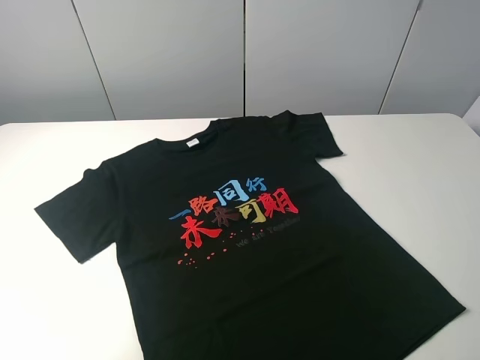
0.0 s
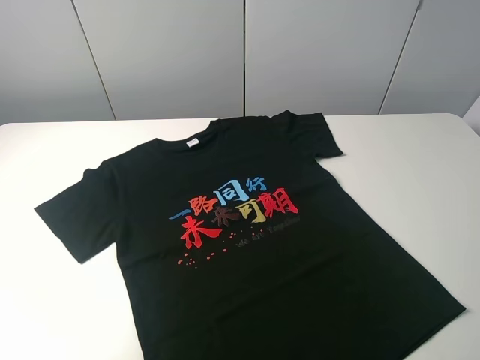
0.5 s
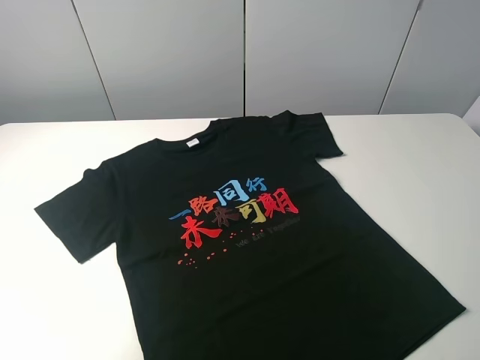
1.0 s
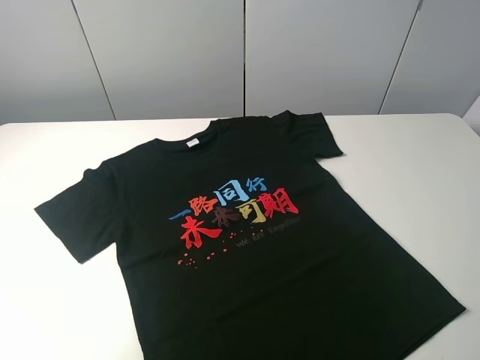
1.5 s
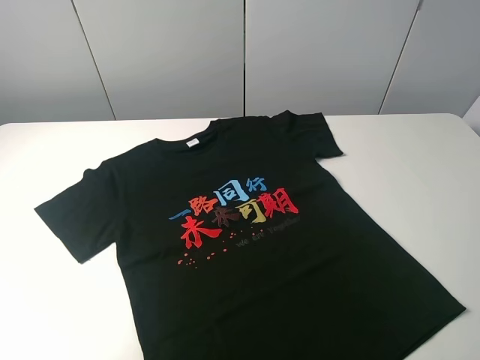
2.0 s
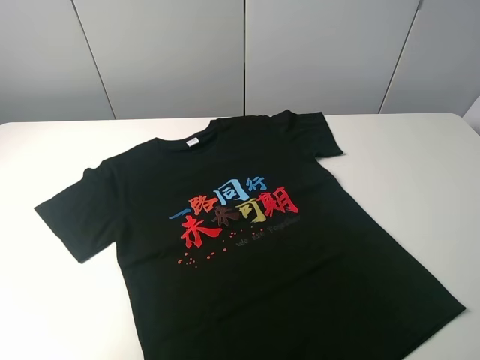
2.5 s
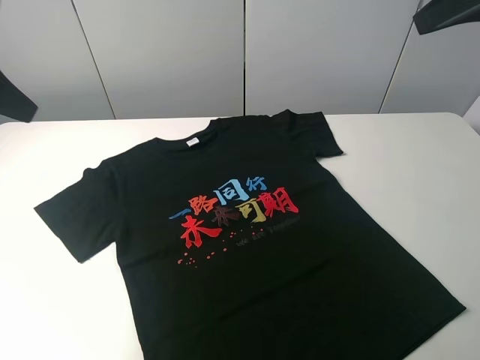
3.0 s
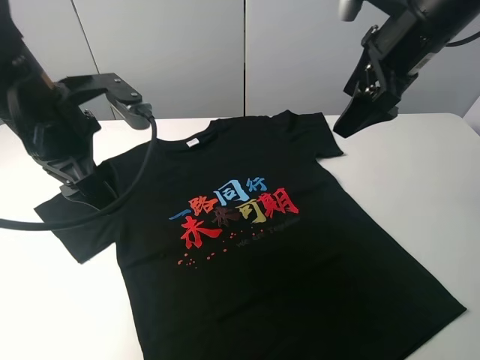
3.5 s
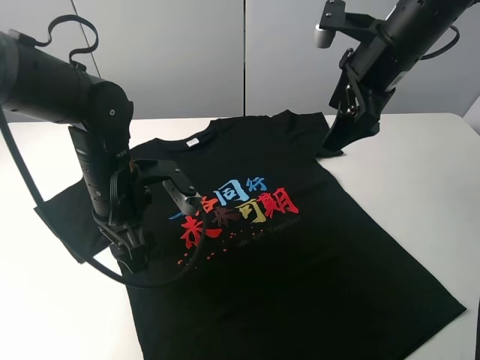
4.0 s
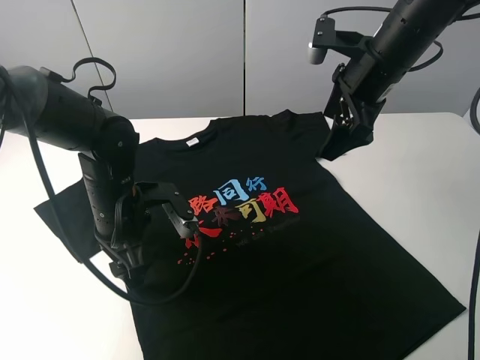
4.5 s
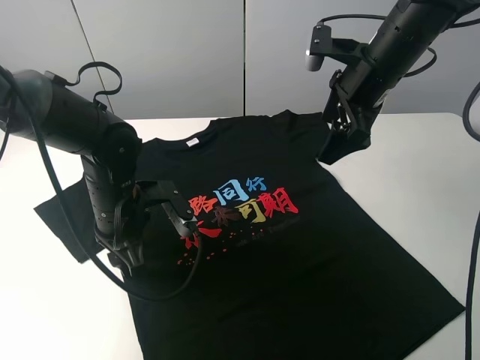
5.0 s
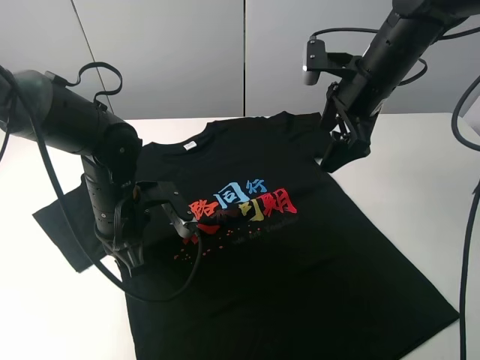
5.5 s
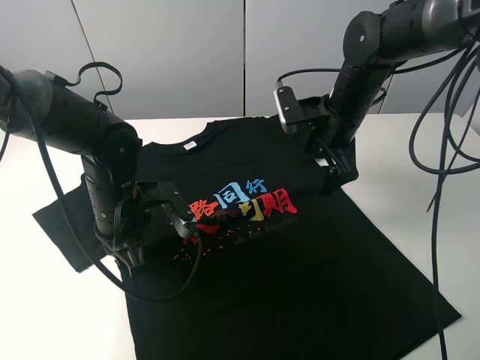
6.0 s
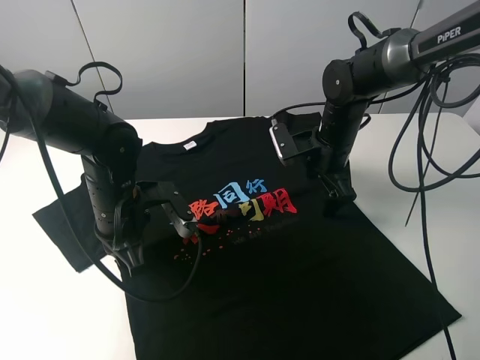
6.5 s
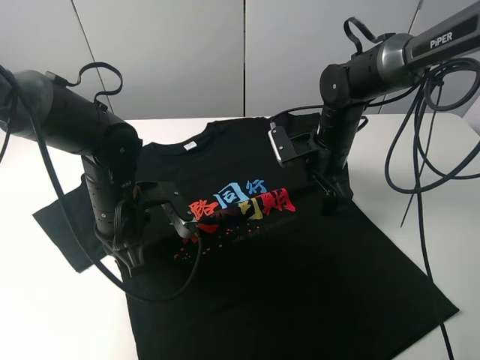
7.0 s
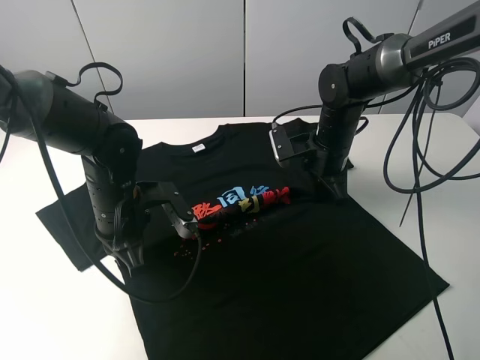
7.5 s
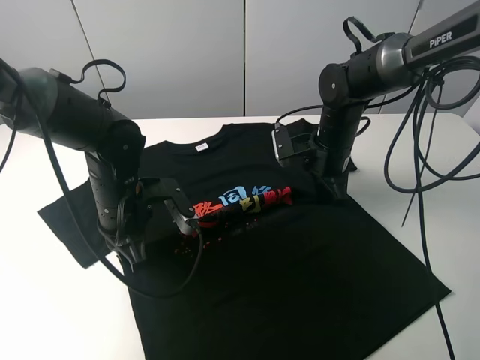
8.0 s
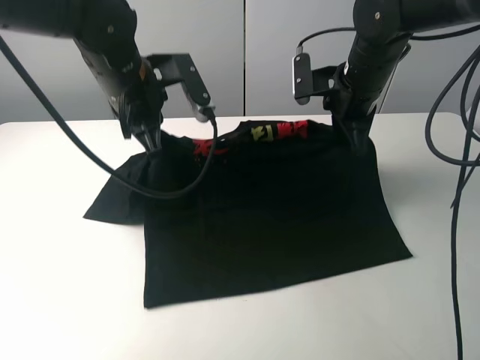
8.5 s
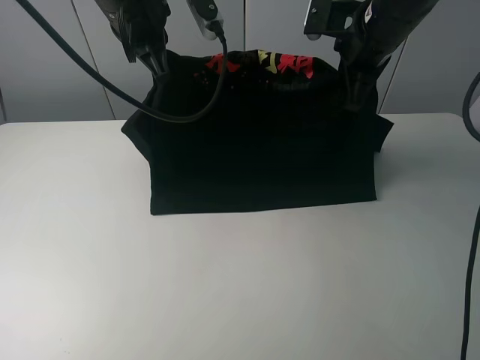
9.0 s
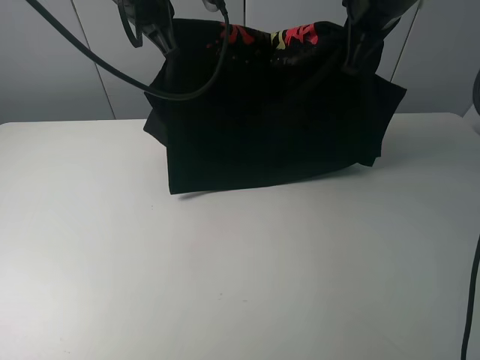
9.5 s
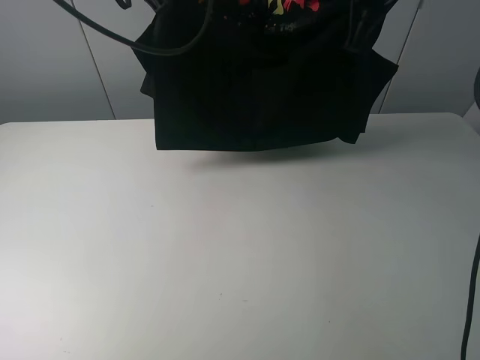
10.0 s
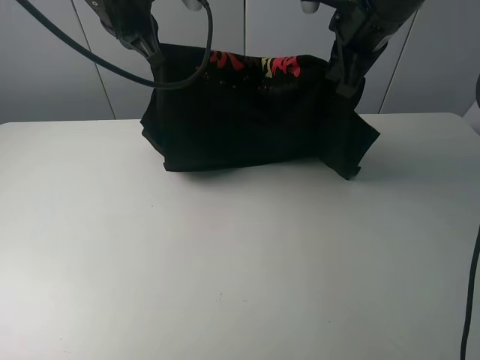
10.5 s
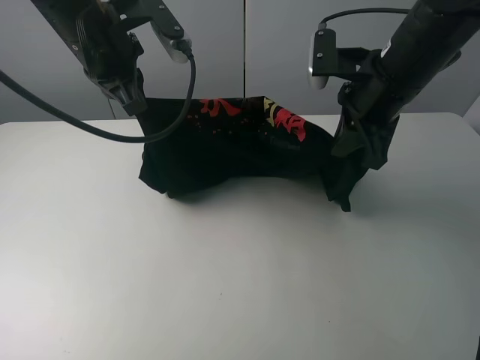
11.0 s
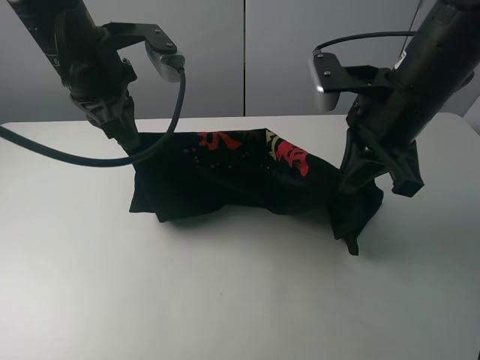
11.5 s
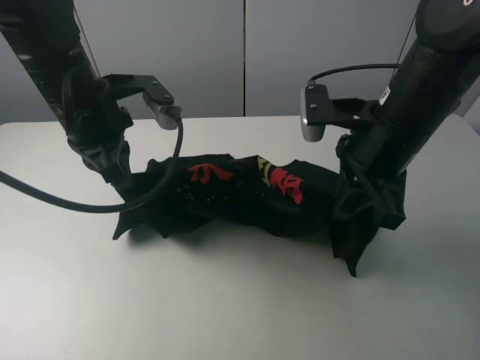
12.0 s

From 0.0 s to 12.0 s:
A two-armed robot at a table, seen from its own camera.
Task of the whole recording: fold the clothes on the table.
Step, from 0.0 s to 7.0 s: Lift the black T-shirt with the left gripper.
From 0.0 s to 2.0 s: The two grippers keep their place.
From 2.0 s to 4.0 s: The left gripper heads forward, to the right and downward, covering some 35 cm. Meanwhile the right gripper moves forward, roughly 35 cm.
From 4.0 s to 6.0 s: The left gripper closes its fingers; the right gripper is displaced downward by approximately 10 cm.
From 6.0 s to 8.0 s: The right gripper travels downward by roughly 5 cm, and closes.
From 8.0 s to 10.0 s: The right gripper is displaced upward by roughly 20 cm. Meanwhile the left gripper heads upward and forward, covering approximately 30 cm.
From 10.0 s to 12.0 s: The right gripper travels backward and downward by about 20 cm; the left gripper is displaced downward and backward by some 15 cm.

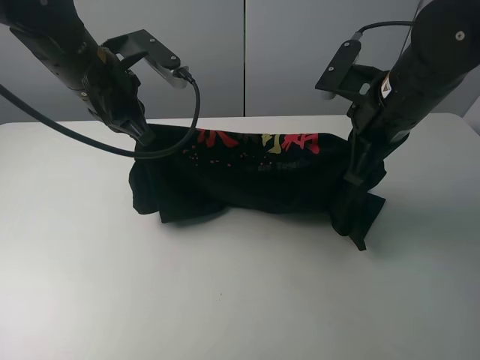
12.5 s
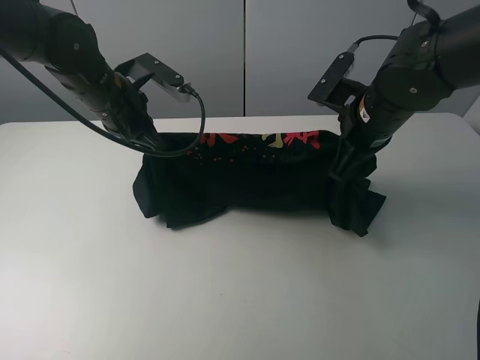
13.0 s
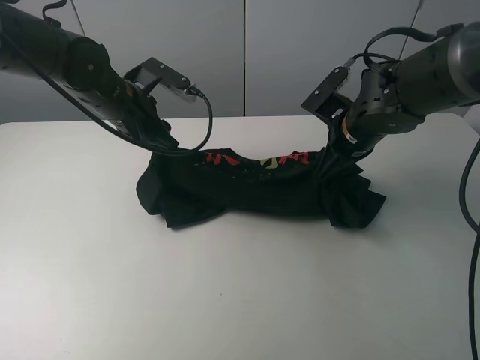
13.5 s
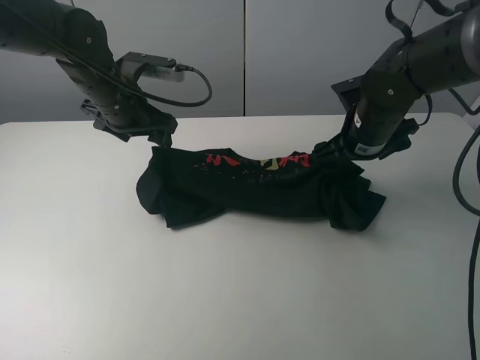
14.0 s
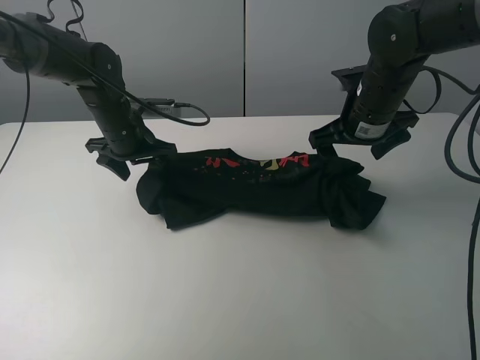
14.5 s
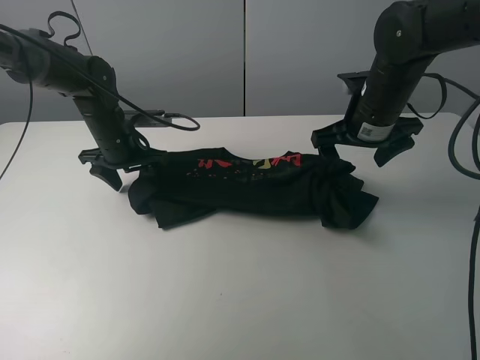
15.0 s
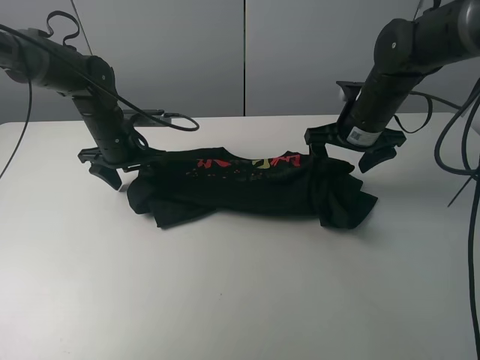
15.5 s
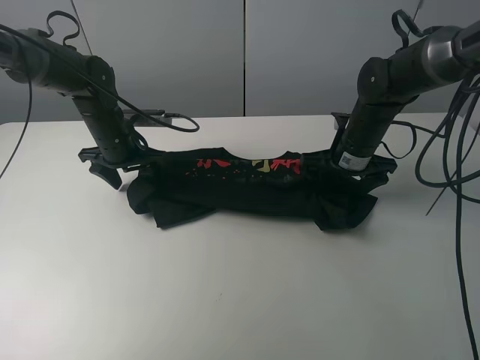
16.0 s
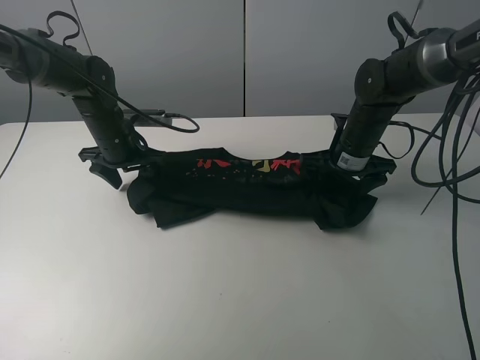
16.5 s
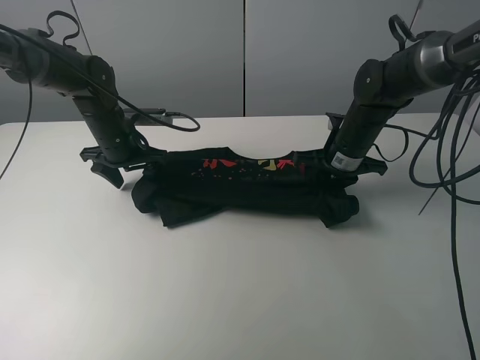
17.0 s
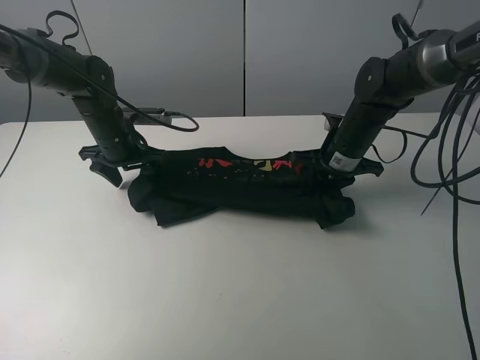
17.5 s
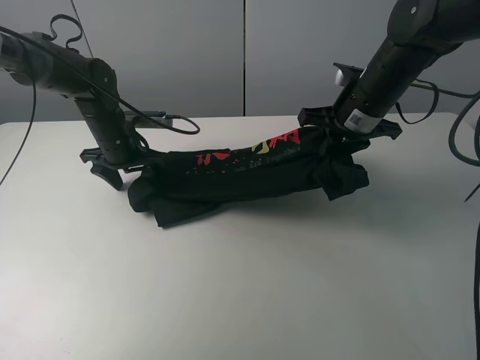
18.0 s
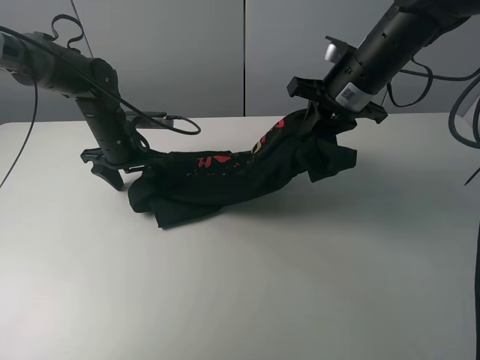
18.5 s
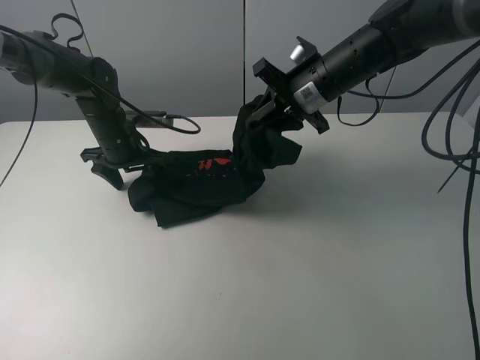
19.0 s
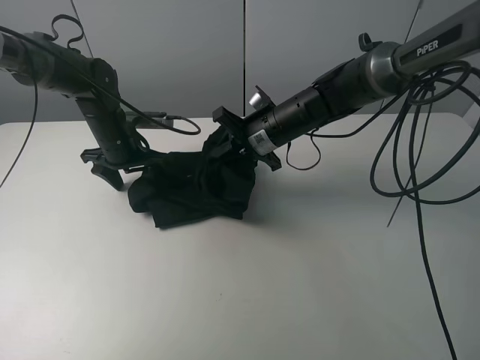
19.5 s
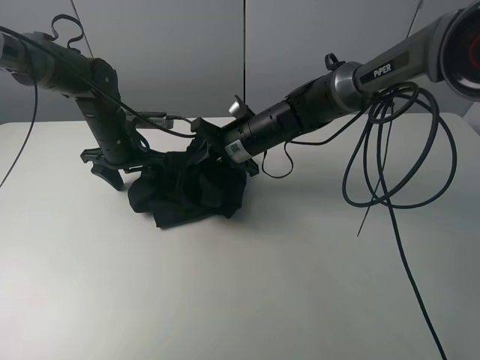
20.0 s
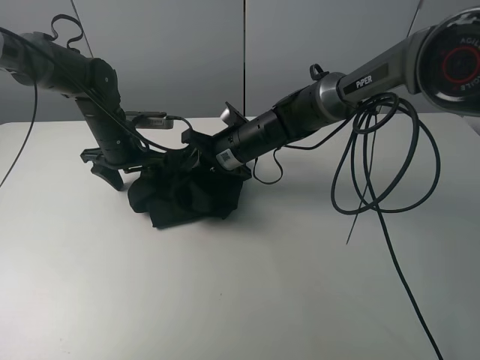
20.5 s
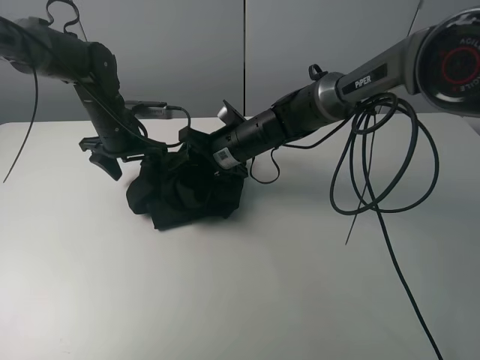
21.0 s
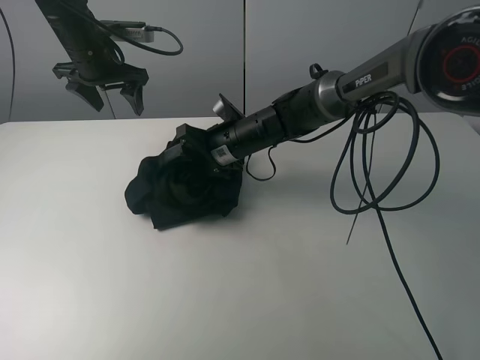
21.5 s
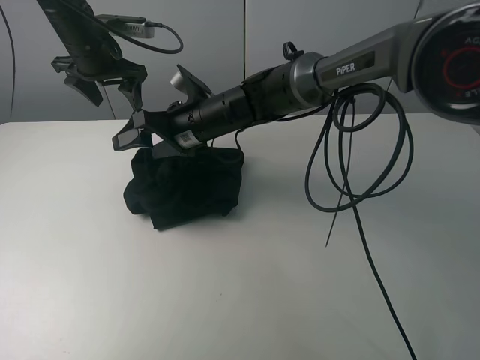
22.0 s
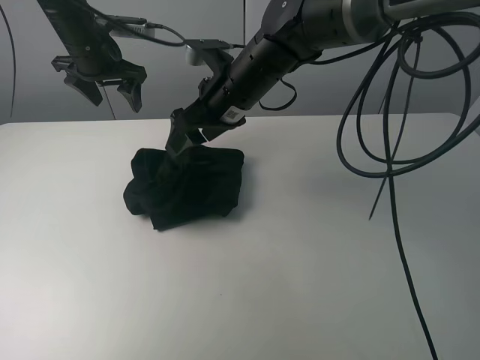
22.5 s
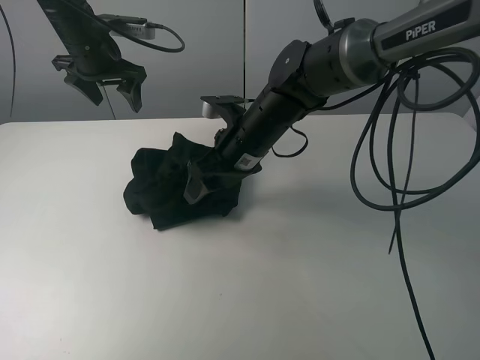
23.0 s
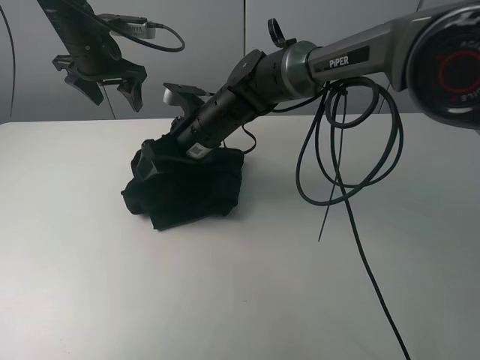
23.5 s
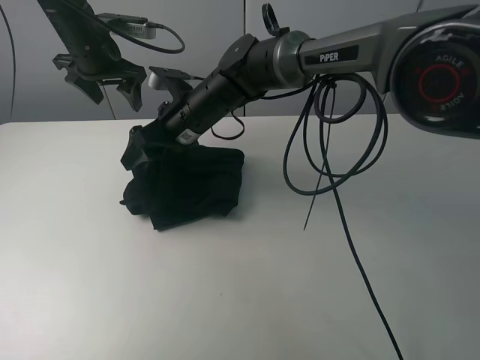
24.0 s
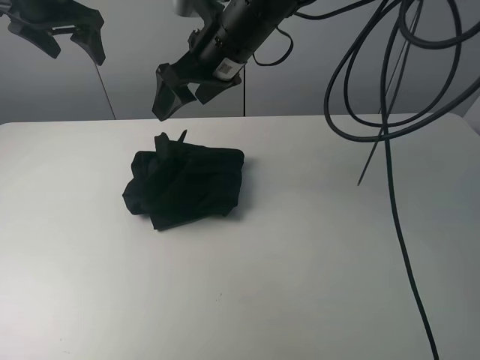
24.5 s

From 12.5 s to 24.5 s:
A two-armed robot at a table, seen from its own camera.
Task of the whole recording: fold the clothes on the table.
Step, from 14.5 s to 16.5 s: Grasp the black T-shirt with the right gripper.
Step, from 17.0 s to 24.0 s: Fold the black T-shirt from right to left with right gripper.
From 12.5 s to 14.5 s: The right gripper is displaced forward by roughly 5 cm, and opens up, while the left gripper moves downward and forward, about 15 cm, and opens its fingers.
From 14.5 s to 16.5 s: The right gripper moves downward, approximately 10 cm.
From 16.5 s to 18.5 s: The right gripper is displaced upward by some 15 cm, and closes.
From 18.5 s to 20.5 s: The right gripper travels to the left and downward by roughly 20 cm.
From 20.5 s to 22.5 s: The left gripper moves upward and forward, approximately 15 cm, while the right gripper heads upward, covering roughly 10 cm, and opens its fingers.
From 22.5 s to 24.5 s: Both grippers travel together upward, approximately 10 cm.

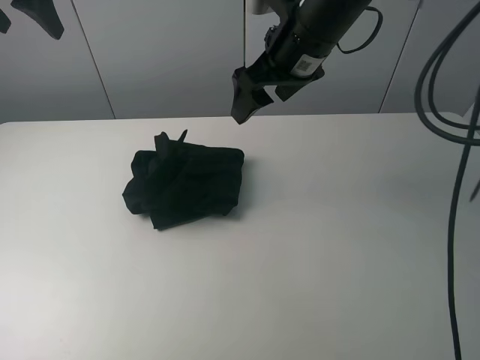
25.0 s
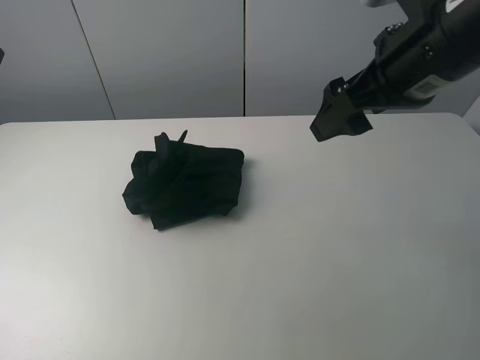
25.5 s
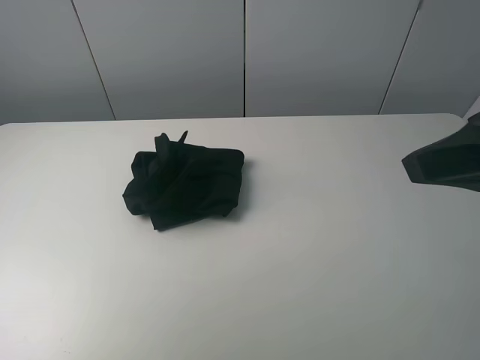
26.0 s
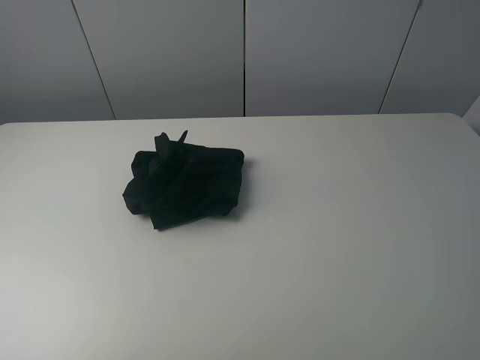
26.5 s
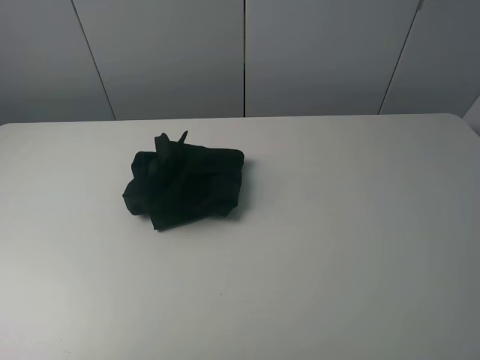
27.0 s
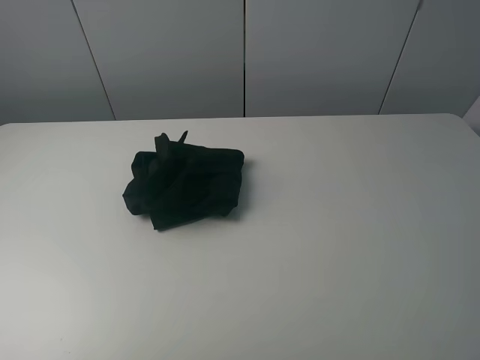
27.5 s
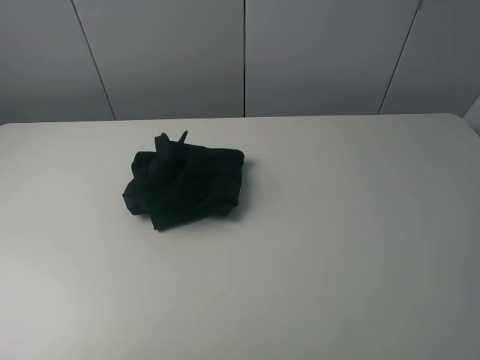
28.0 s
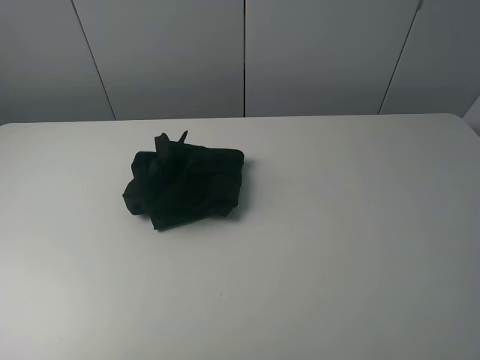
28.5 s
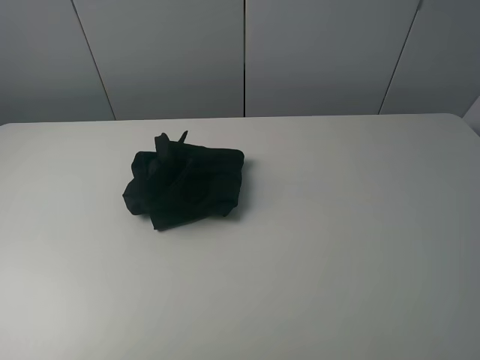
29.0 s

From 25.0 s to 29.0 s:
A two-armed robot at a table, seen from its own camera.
Task of the whole recording: fold the clothes on the table.
From 25.0 s to 27.0 s: The left gripper moves backward, some 40 cm. Meanwhile the right gripper heads backward and to the right, covering about 40 cm.
